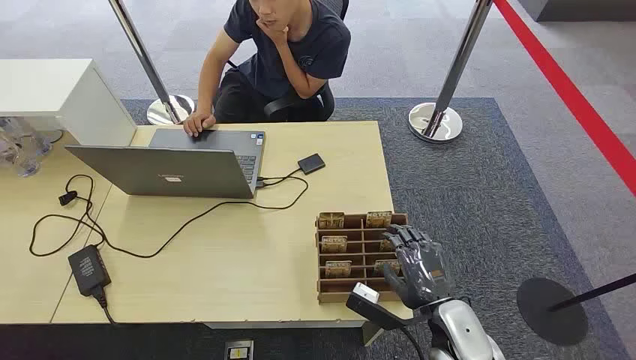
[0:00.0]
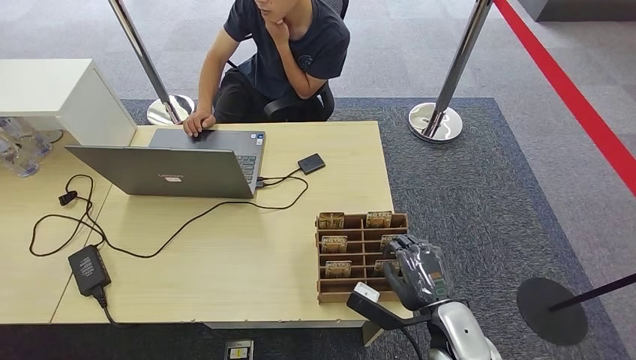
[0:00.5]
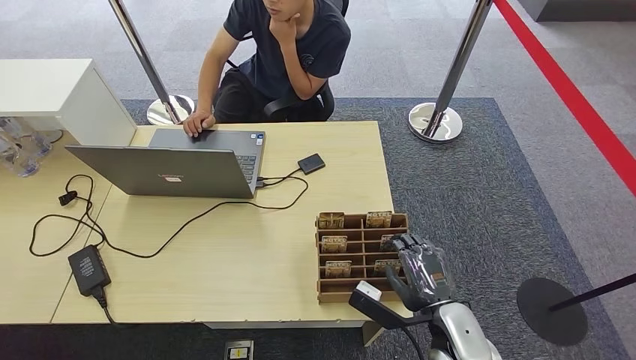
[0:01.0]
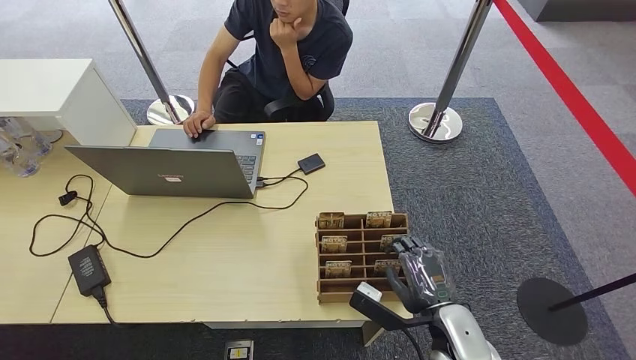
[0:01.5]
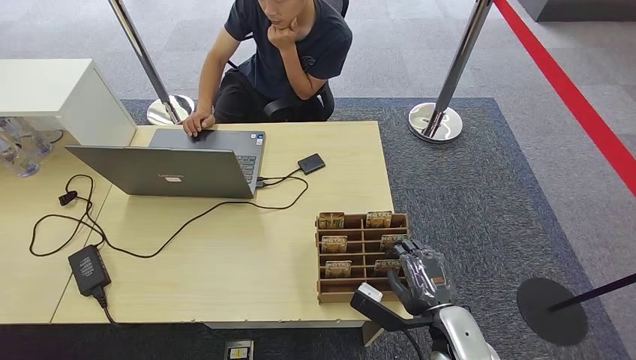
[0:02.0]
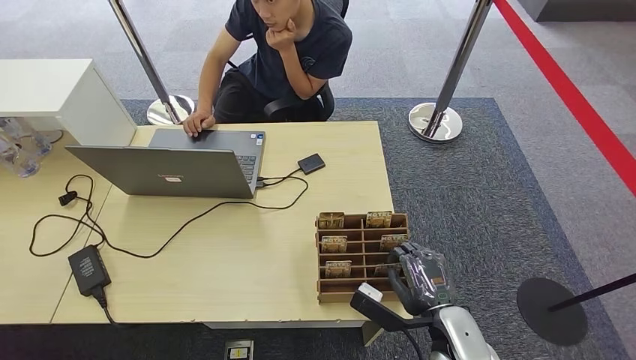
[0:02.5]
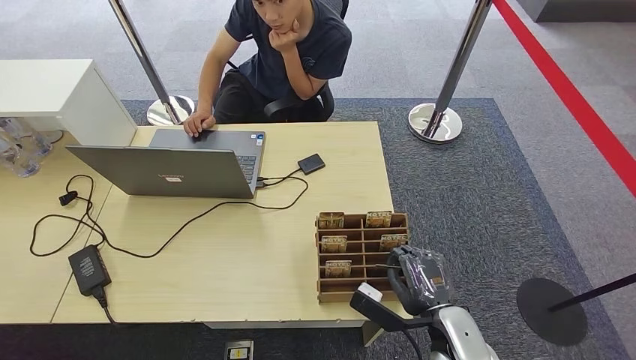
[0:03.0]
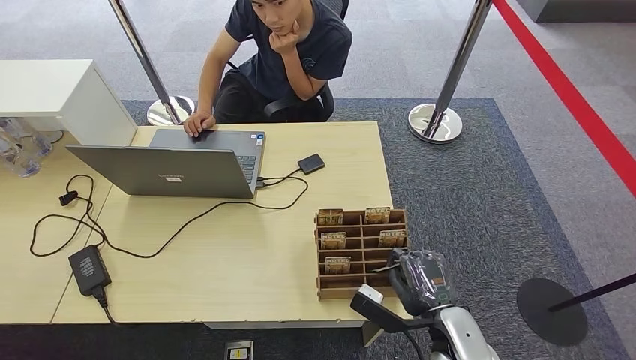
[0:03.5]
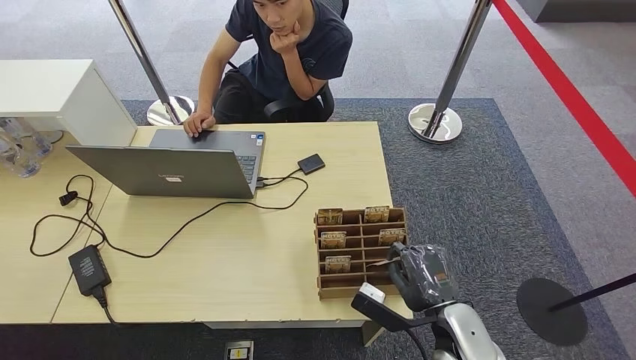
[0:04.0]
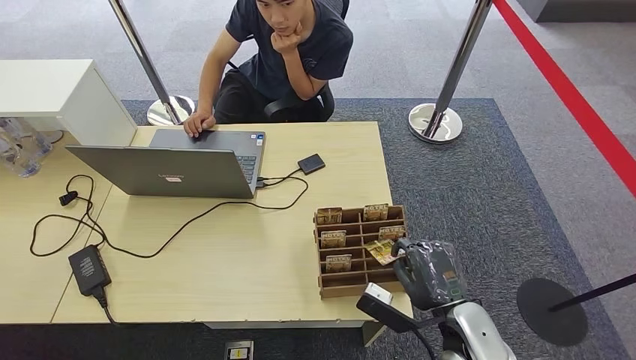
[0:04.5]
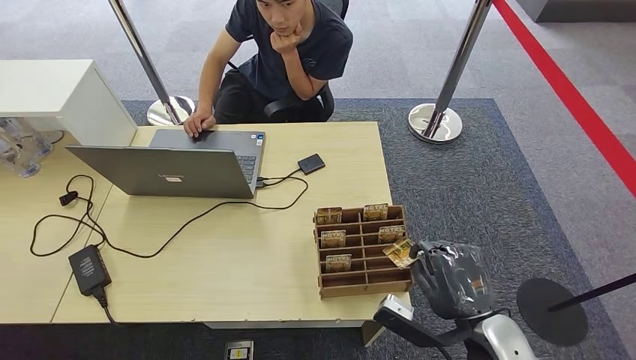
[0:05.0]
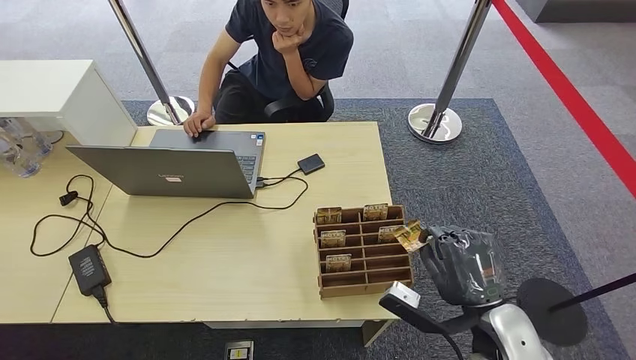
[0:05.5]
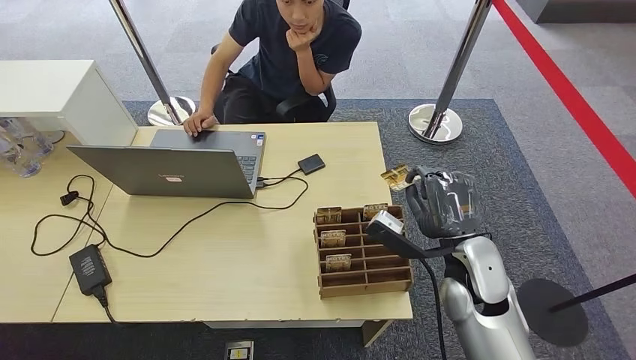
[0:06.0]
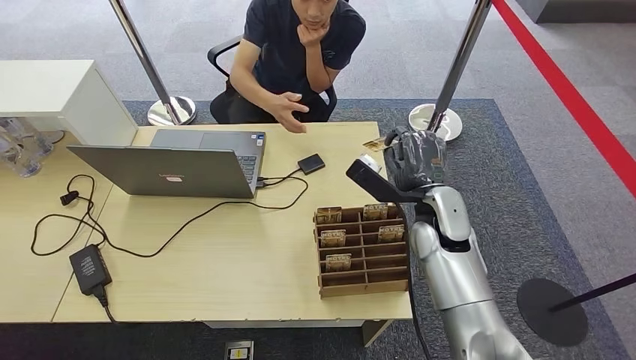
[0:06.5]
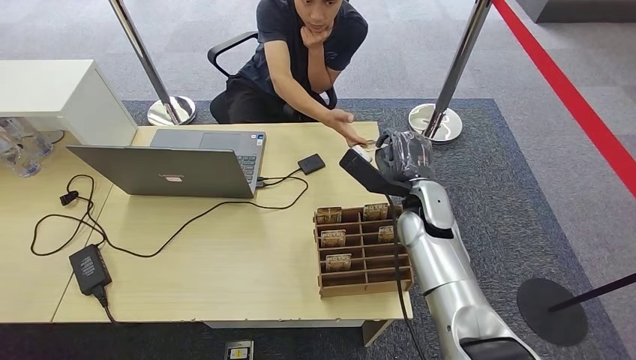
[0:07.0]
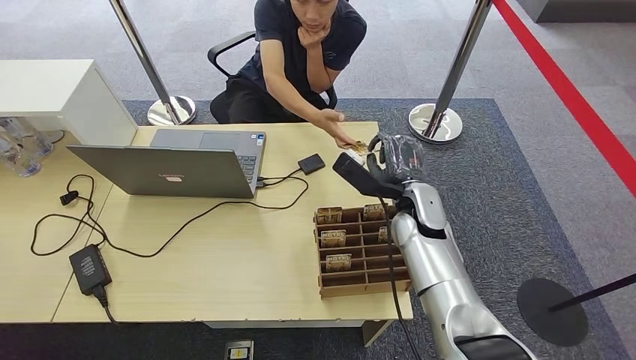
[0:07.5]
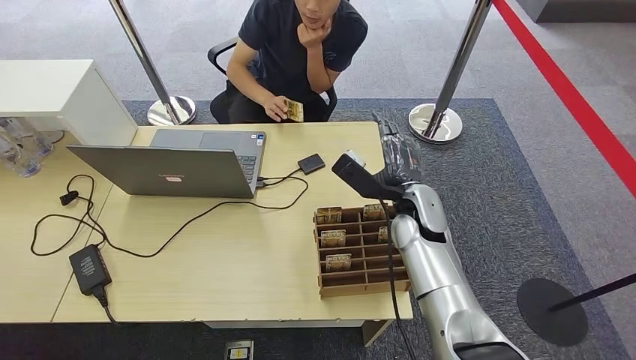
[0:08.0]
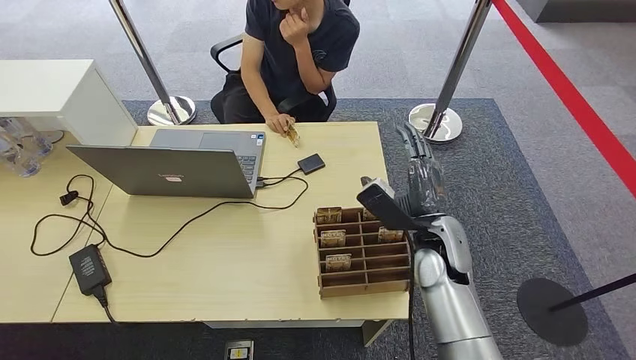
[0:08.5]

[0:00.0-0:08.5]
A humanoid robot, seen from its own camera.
Step, 0:00.0 to 0:04.5: Pick up the key card from the card box.
Step, 0:05.0 to 0:08.5: Hand the key card to the target.
0:02.0 to 0:04.0: The hands make only small movements.
0:04.0 to 0:06.5: The right hand heads forward and upward, covering some 20 cm.
0:06.5 to 0:08.5: The hands move only a little.
